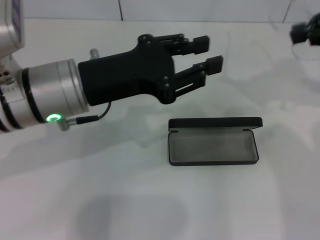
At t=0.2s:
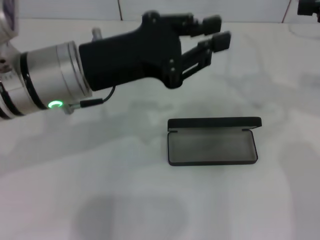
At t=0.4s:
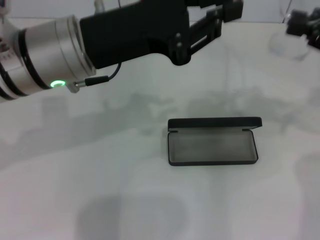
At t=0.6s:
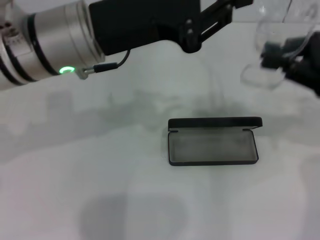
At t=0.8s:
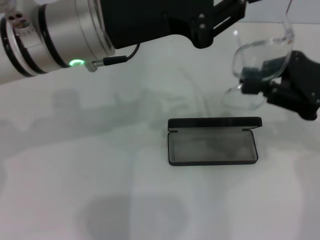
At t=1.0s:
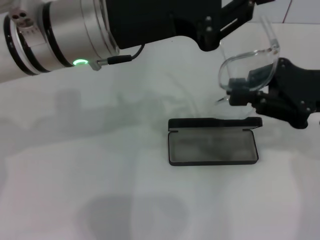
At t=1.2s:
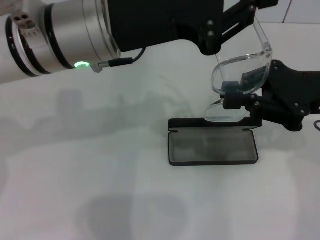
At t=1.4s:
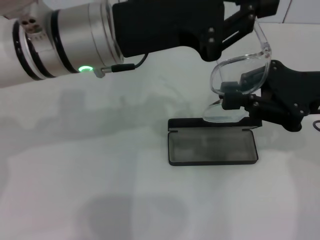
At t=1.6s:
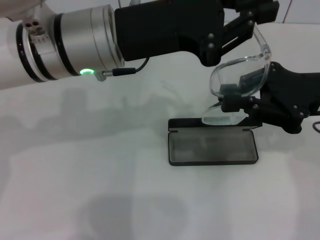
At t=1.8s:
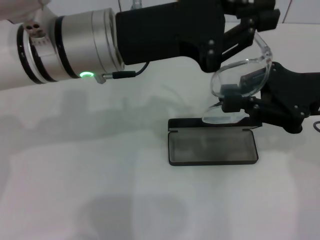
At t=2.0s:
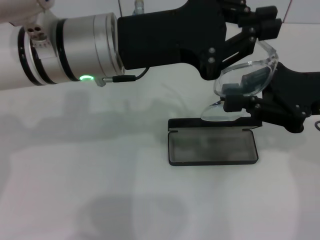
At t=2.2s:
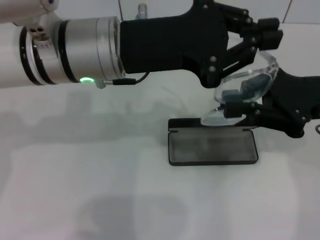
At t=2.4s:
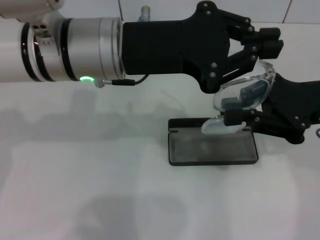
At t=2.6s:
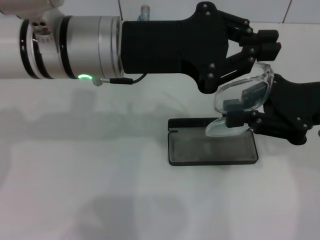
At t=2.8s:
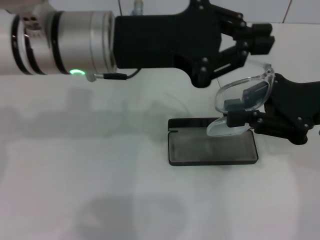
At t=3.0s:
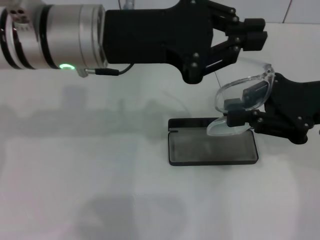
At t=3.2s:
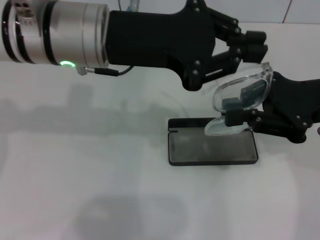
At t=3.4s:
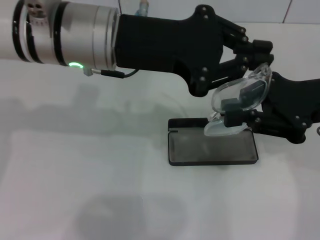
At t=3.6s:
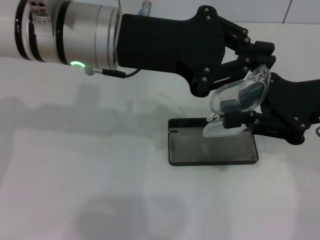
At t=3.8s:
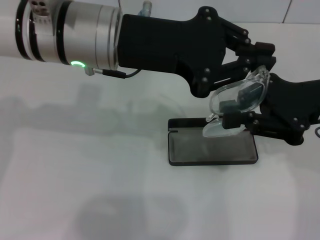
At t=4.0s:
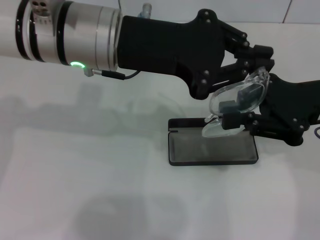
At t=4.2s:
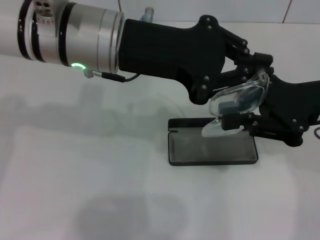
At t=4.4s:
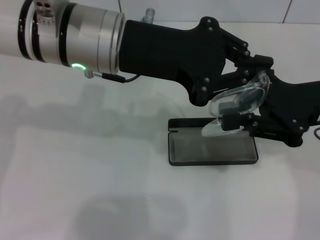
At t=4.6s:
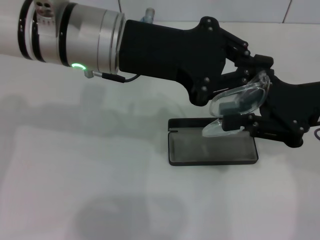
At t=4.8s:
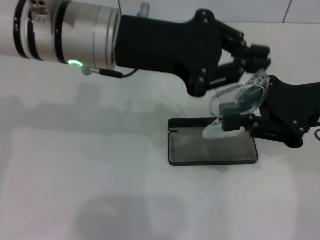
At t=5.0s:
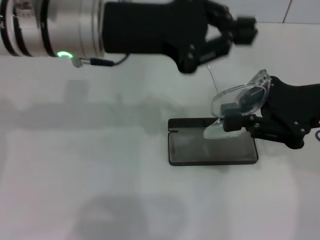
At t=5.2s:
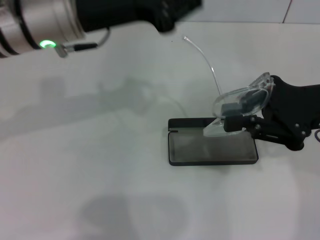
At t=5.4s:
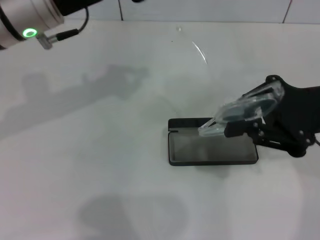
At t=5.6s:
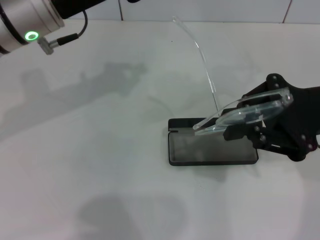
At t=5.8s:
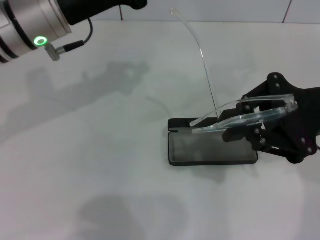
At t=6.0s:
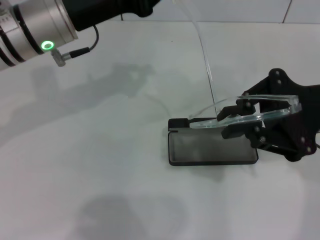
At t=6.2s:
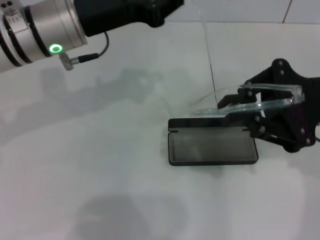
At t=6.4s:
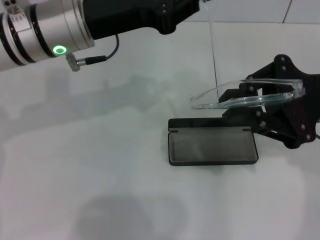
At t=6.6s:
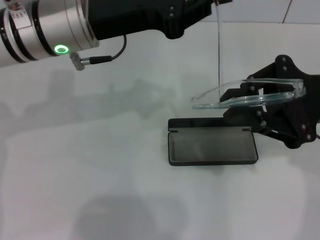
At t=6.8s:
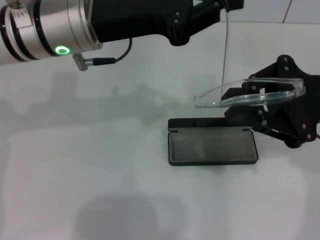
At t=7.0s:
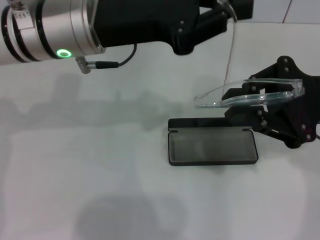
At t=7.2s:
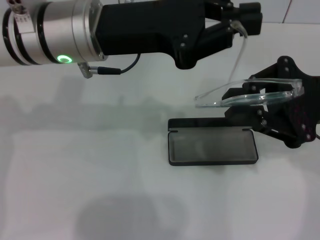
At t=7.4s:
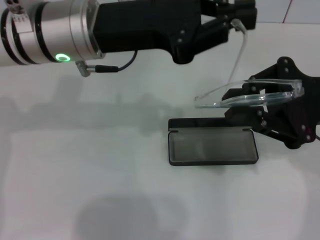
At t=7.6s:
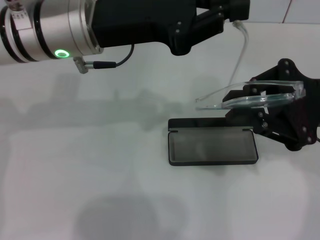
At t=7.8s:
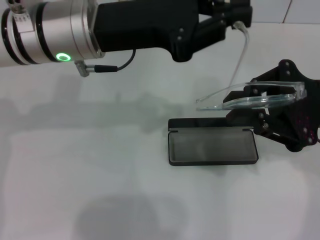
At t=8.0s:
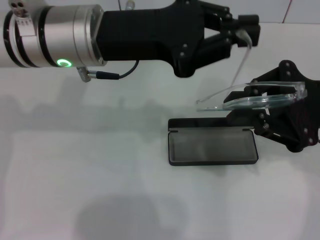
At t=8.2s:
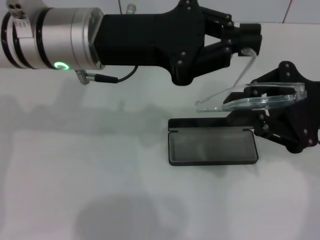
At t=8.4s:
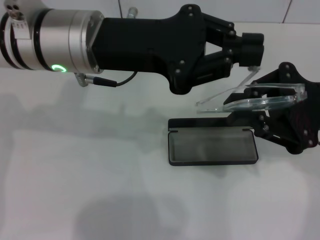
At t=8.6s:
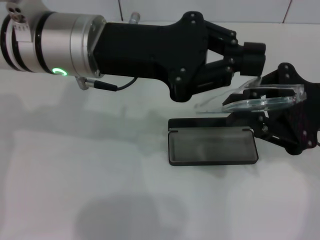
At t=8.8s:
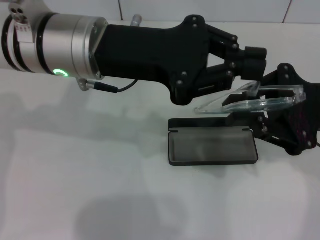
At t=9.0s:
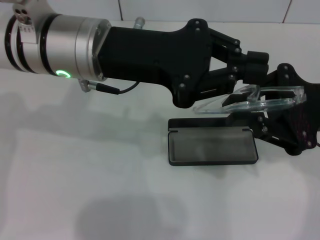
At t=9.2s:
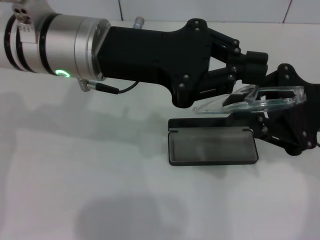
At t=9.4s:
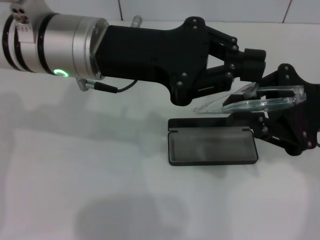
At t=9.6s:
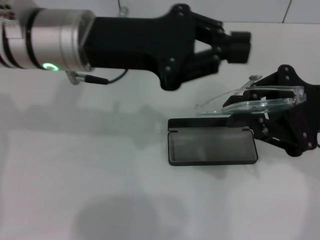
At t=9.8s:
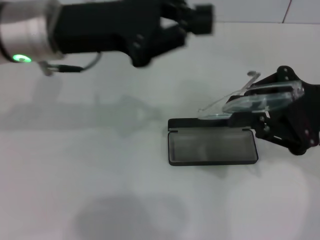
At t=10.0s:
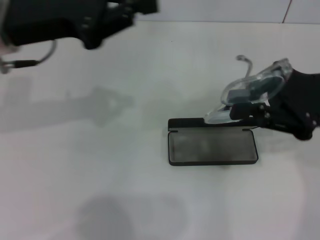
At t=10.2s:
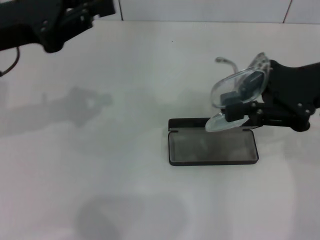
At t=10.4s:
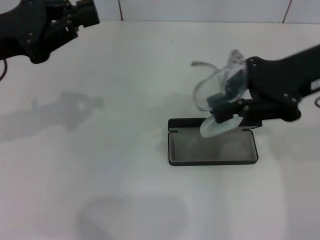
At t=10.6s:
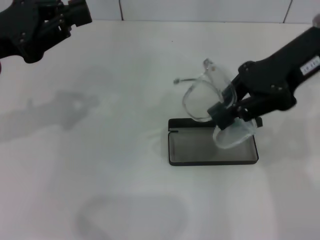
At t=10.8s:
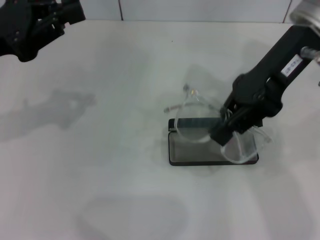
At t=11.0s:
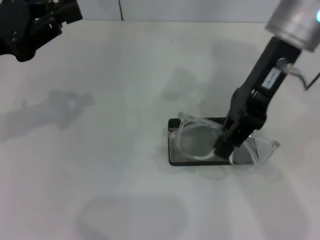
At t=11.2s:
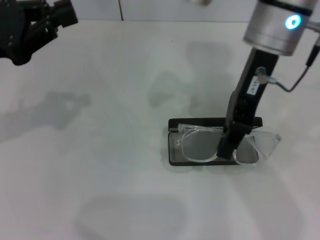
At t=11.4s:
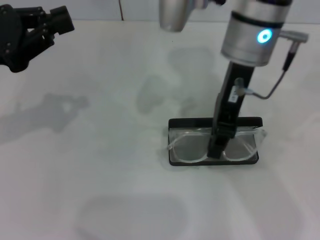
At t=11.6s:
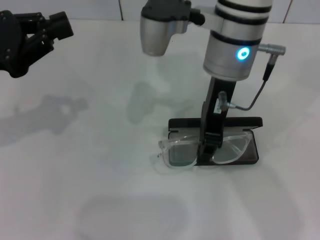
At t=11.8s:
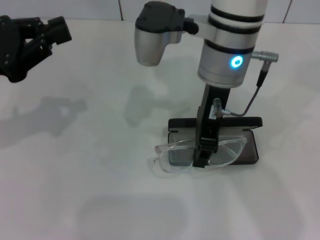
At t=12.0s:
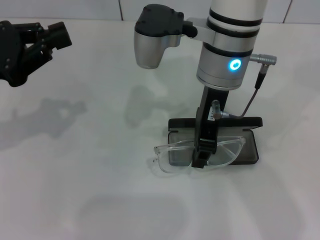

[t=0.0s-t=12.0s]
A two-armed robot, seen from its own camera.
Step, t=0.0s to t=9.4s: Fold the frame with your left hand.
t=0.0s to t=1.6s: The right gripper is displaced downward, to the left and backward by about 15 cm; the left gripper changes place by about 5 cm, and closes its fingers.
t=1.6s to t=3.0s: The grippers stay close to where they were, moving slightly.
t=3.0s to t=4.4s: The grippers make only small movements.
t=4.4s to t=6.0s: The left gripper moves to the left, roughly 5 cm.
t=9.0s to t=10.4s: The left gripper shifts about 15 cm to the left, while the right gripper is displaced upward and forward by some 10 cm.
t=10.4s to t=12.0s: The right gripper heads to the left, covering approximately 15 cm.

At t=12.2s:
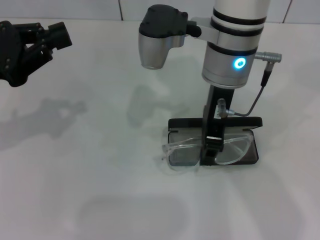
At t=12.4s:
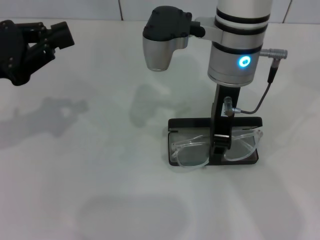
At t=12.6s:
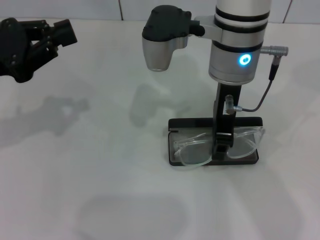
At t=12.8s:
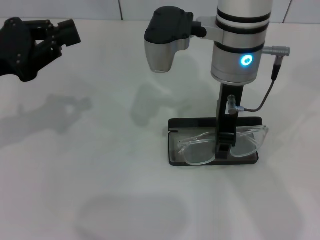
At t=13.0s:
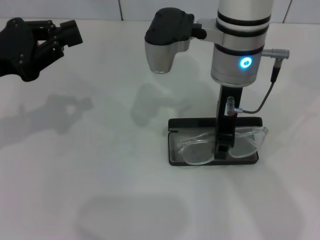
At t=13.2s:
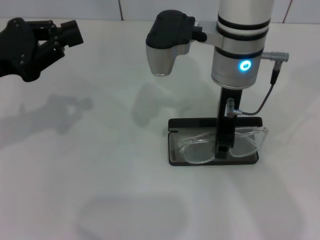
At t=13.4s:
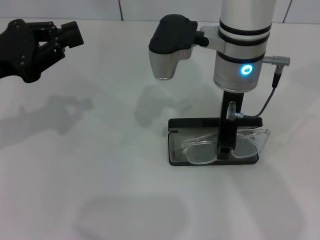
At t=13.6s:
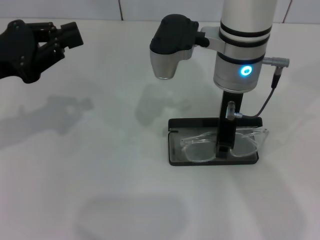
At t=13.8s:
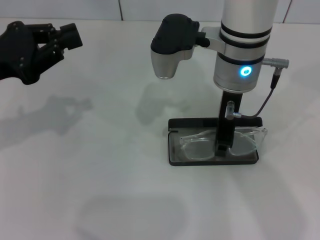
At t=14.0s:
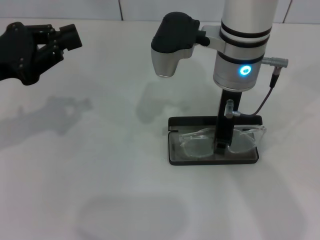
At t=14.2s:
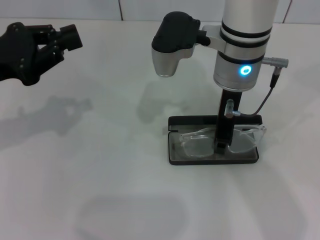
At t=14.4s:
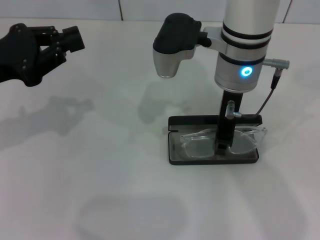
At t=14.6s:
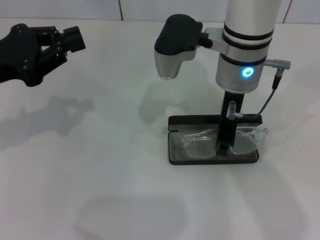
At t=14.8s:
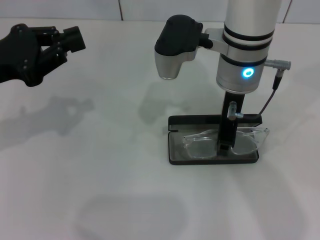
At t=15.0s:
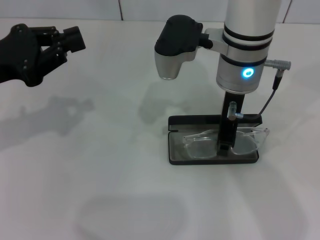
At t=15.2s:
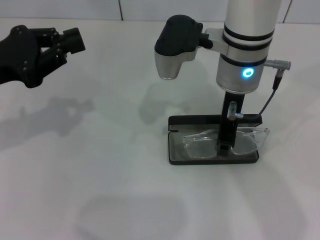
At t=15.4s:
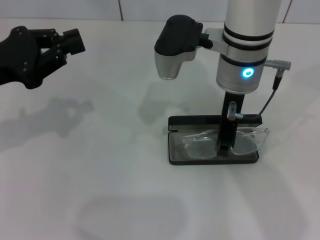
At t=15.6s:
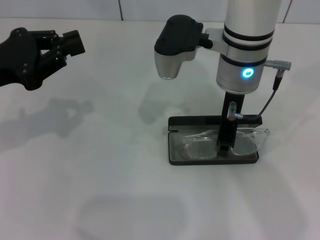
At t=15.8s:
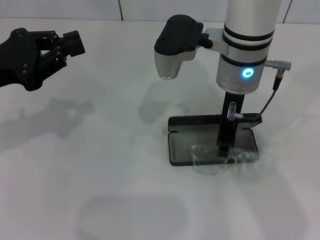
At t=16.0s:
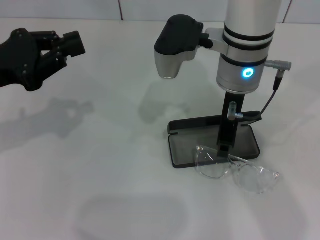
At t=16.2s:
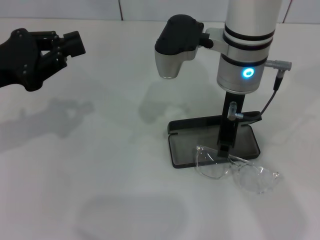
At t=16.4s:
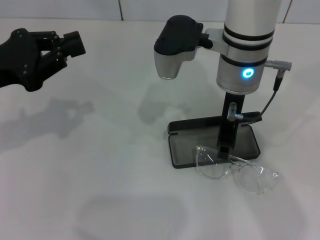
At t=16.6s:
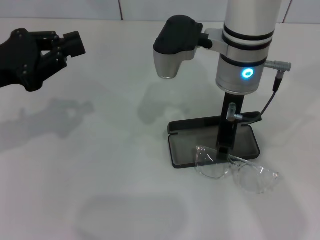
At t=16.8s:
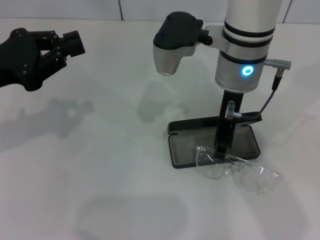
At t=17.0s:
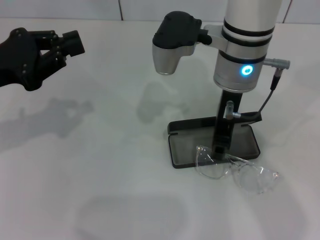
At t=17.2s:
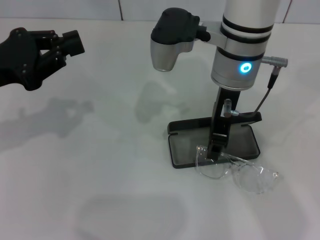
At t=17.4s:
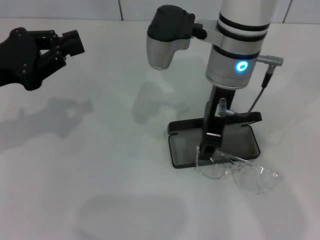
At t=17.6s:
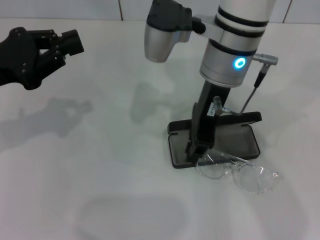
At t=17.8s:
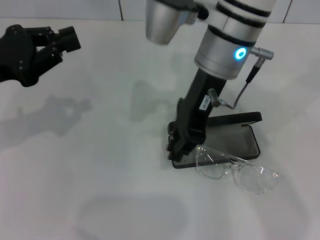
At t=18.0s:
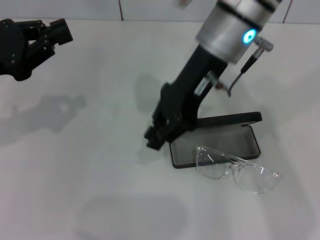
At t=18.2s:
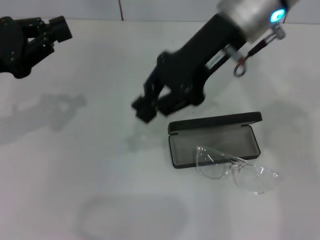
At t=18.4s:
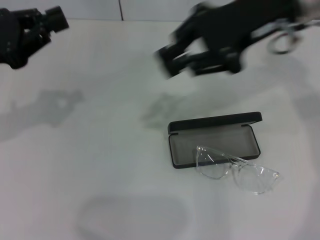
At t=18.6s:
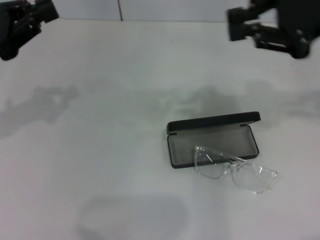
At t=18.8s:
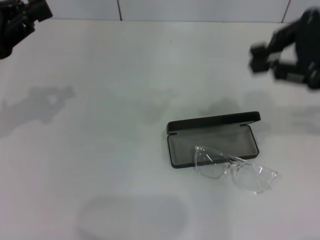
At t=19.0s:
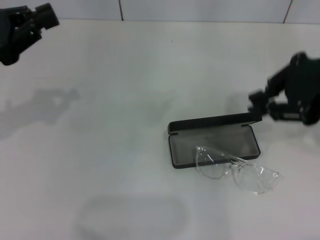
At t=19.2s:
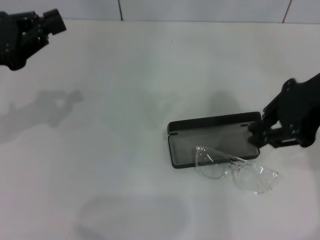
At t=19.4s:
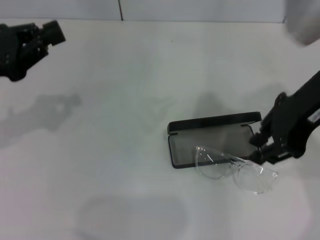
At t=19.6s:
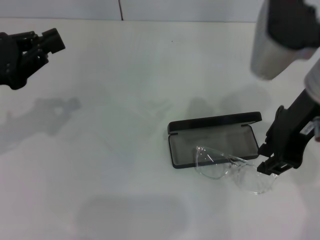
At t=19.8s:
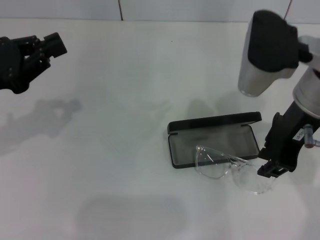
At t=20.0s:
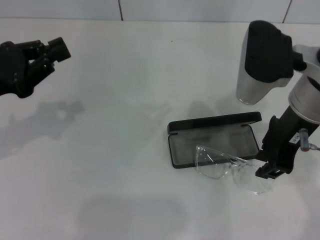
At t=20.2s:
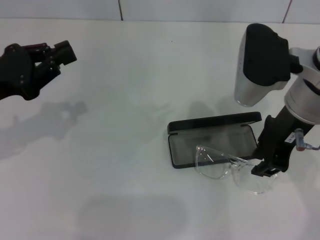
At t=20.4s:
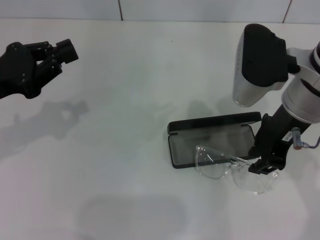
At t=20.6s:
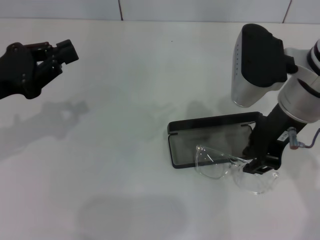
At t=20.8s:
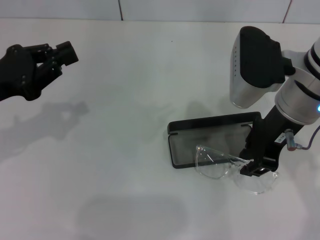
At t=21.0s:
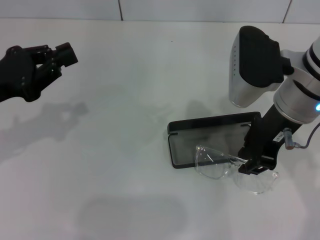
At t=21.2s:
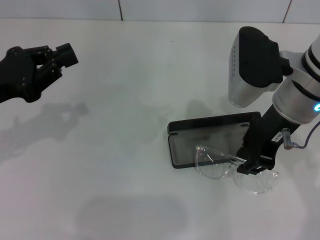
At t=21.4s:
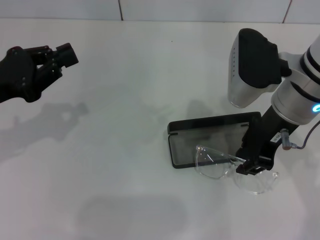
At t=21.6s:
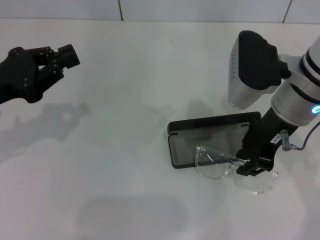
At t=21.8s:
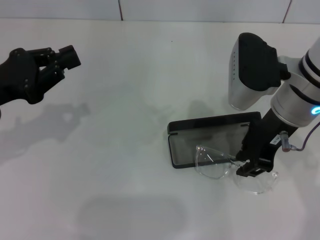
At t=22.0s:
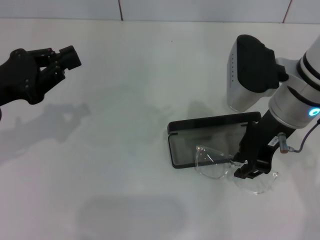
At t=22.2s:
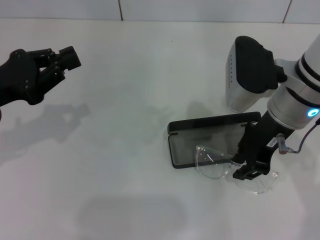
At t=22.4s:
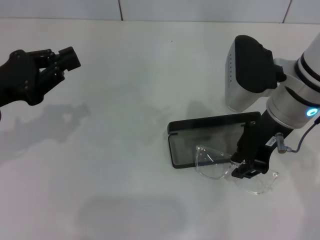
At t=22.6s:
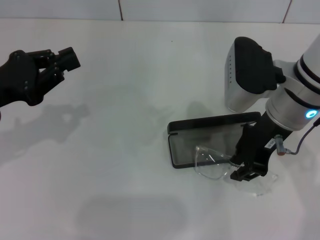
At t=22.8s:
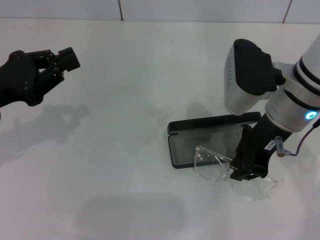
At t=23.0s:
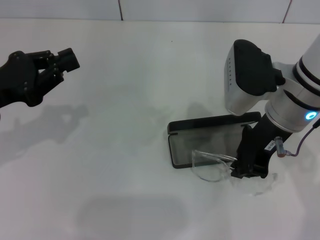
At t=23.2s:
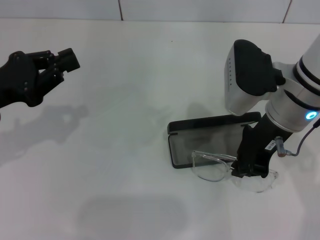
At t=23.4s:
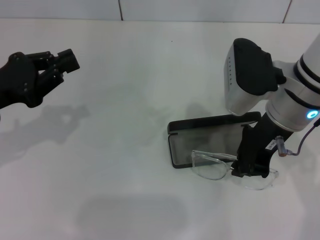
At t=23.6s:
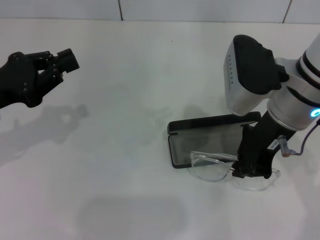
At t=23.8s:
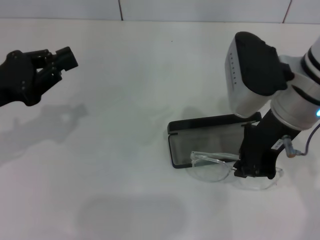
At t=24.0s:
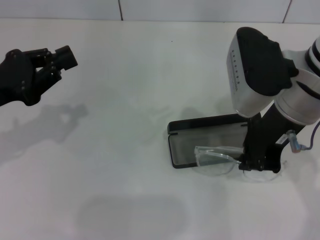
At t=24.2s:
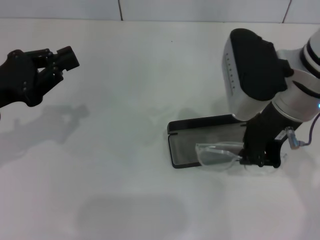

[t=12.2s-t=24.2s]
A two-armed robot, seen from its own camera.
t=12.2s to t=13.8s: The grippers make only small movements.
t=13.8s to t=16.6s: Both grippers stay put.
t=16.6s to t=18.2s: The right gripper travels upward by some 5 cm.
t=18.2s to t=19.8s: The right gripper goes approximately 10 cm backward and to the right.
t=19.8s to t=22.6s: The grippers make only small movements.
t=22.6s to t=24.2s: The grippers move only a little.
